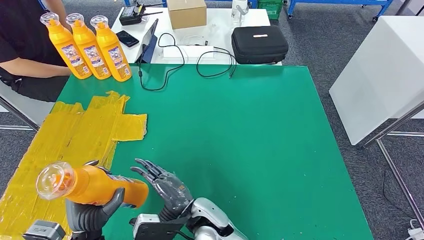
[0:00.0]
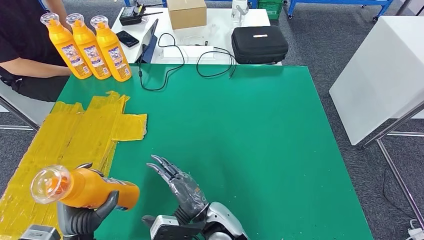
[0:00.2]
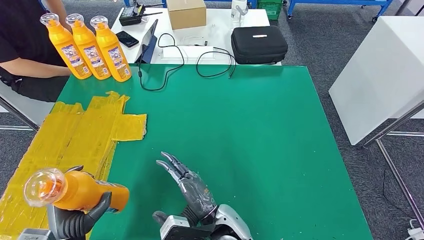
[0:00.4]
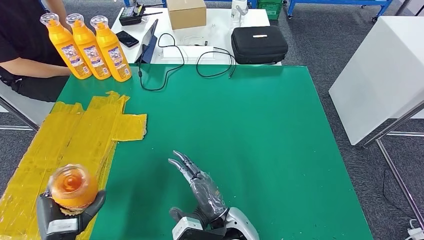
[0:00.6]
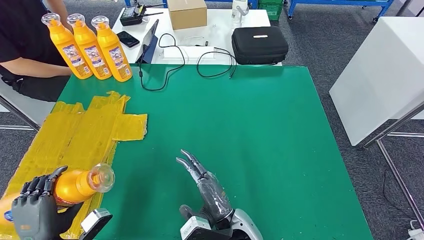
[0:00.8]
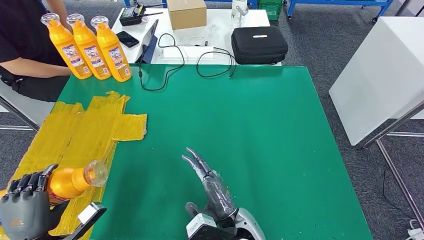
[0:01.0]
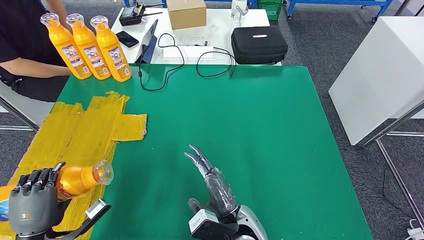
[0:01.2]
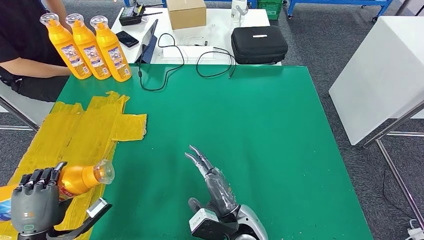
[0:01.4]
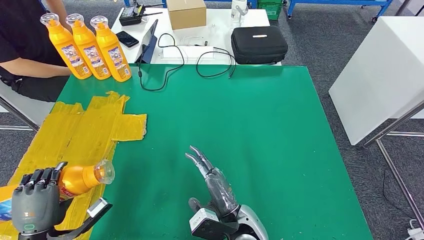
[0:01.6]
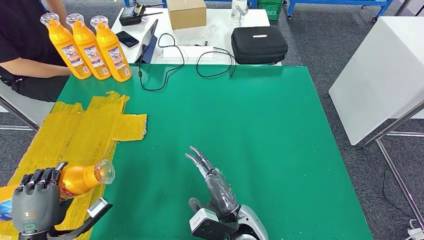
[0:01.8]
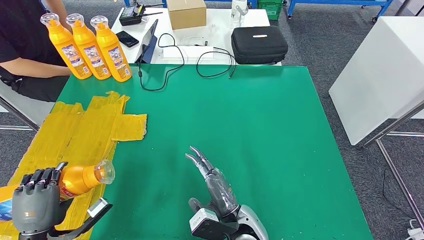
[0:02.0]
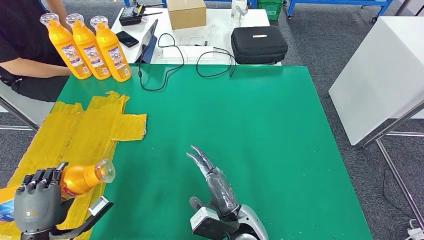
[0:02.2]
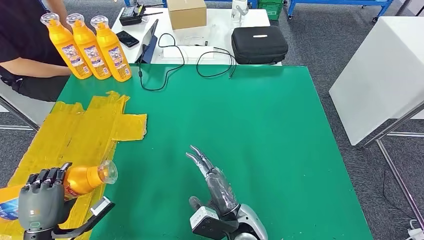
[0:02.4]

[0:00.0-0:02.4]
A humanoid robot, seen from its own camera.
Step, 0.0 to 2.2 s: Flip the fast-moving consumer goods bottle to the front side.
0.0 to 1.2 s: The left hand heads to the left, covering roughly 10 cm. The right hand shifts approximately 10 cm to the right.
1.2 to 2.4 s: There are only small adjustments of the hands.

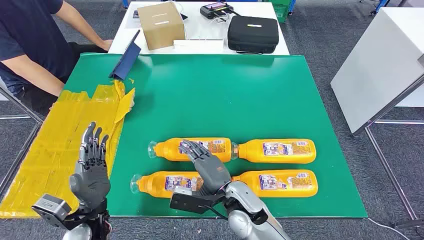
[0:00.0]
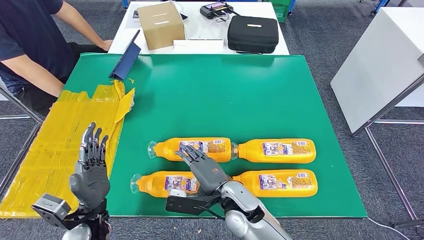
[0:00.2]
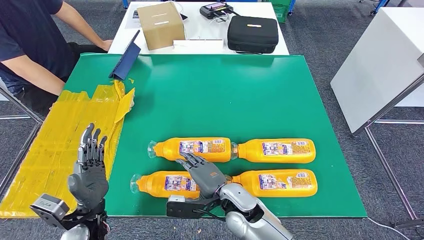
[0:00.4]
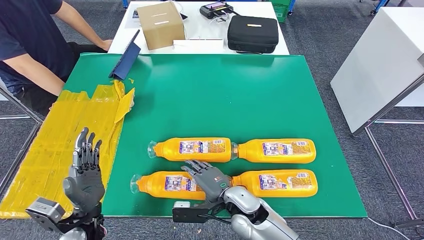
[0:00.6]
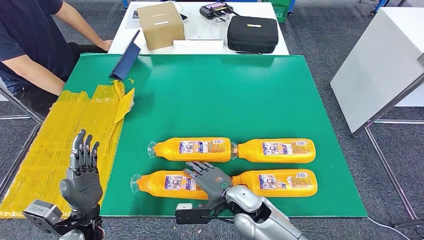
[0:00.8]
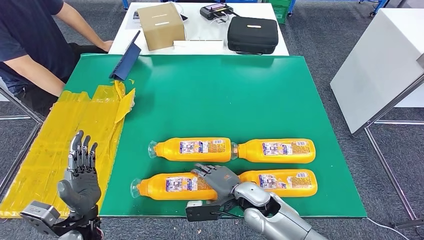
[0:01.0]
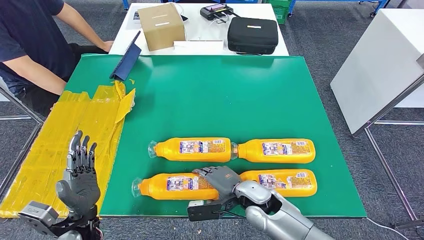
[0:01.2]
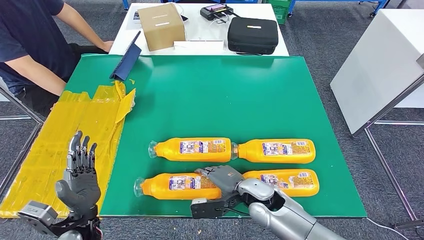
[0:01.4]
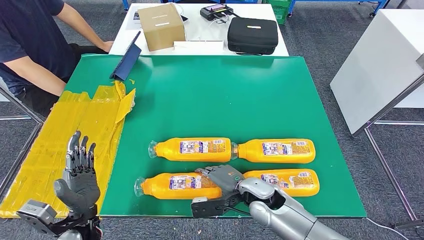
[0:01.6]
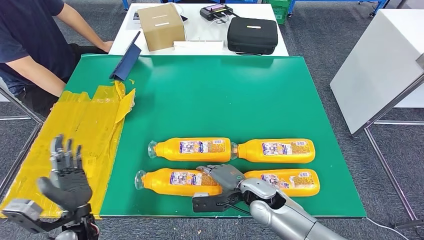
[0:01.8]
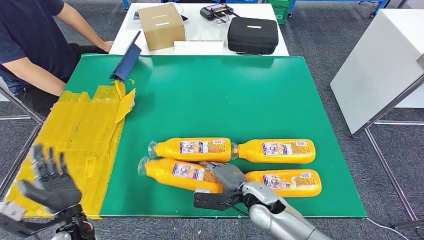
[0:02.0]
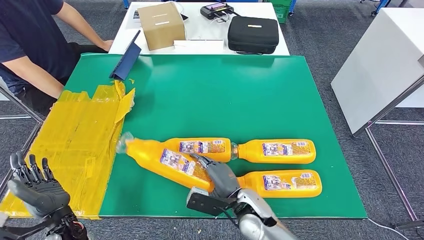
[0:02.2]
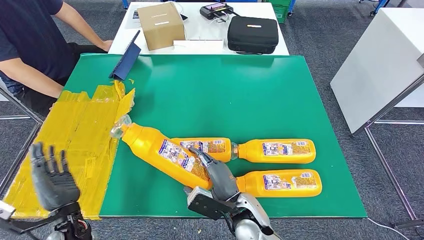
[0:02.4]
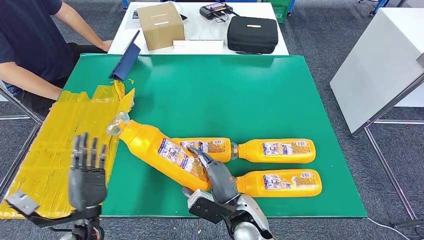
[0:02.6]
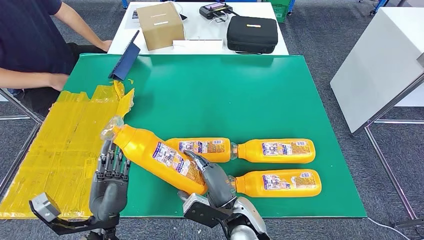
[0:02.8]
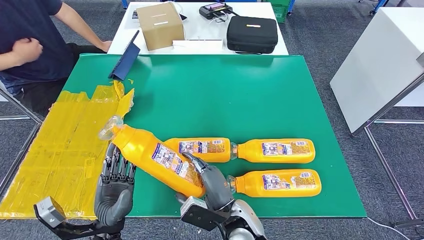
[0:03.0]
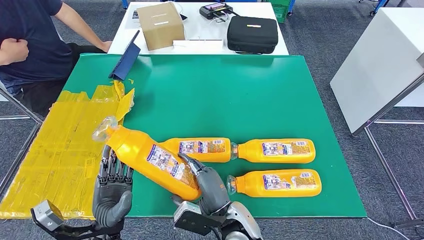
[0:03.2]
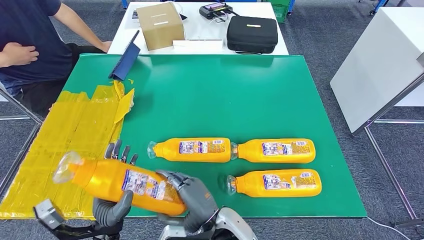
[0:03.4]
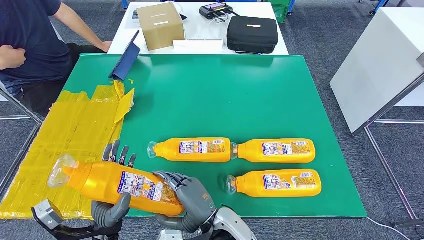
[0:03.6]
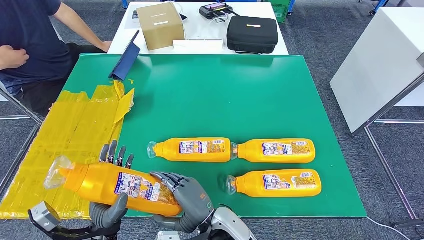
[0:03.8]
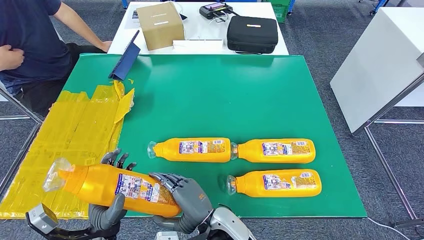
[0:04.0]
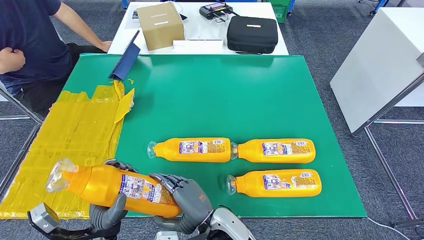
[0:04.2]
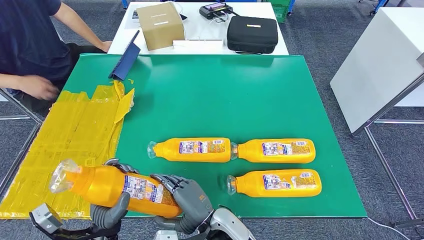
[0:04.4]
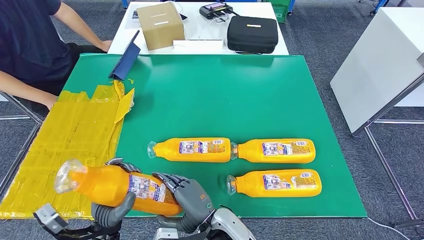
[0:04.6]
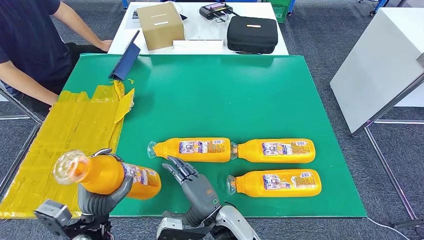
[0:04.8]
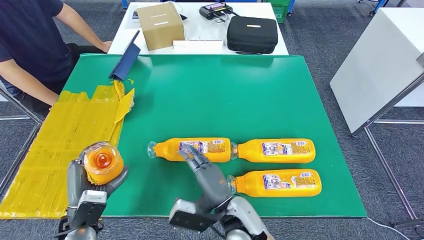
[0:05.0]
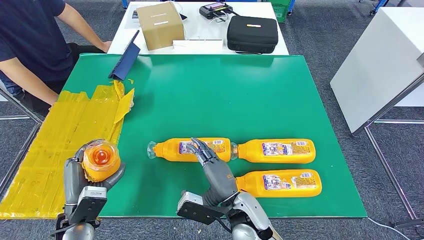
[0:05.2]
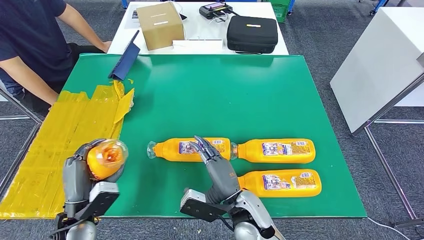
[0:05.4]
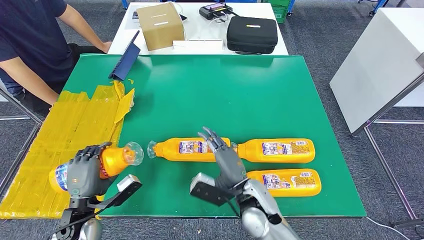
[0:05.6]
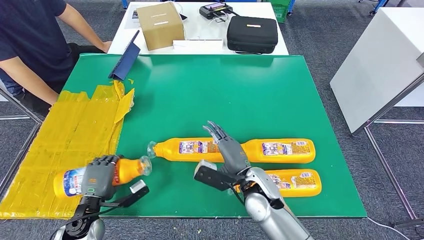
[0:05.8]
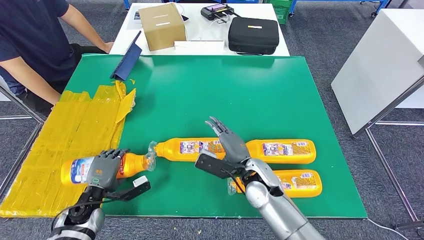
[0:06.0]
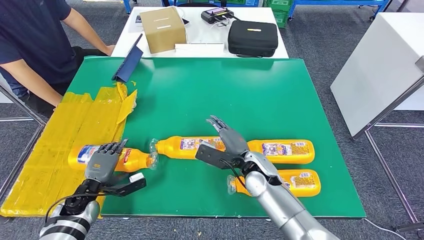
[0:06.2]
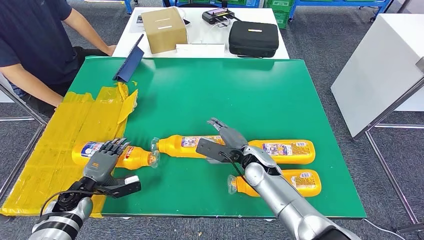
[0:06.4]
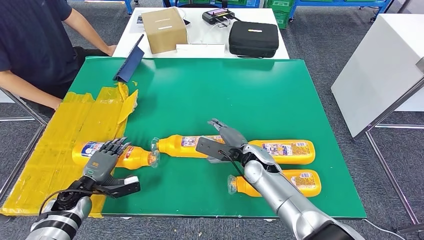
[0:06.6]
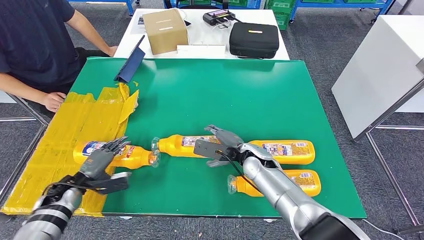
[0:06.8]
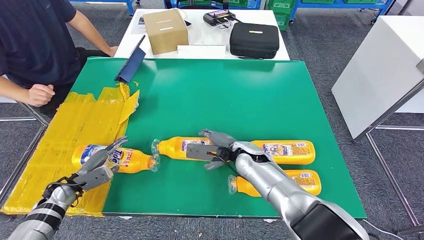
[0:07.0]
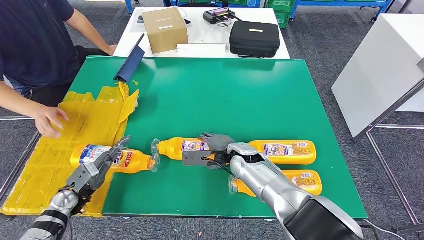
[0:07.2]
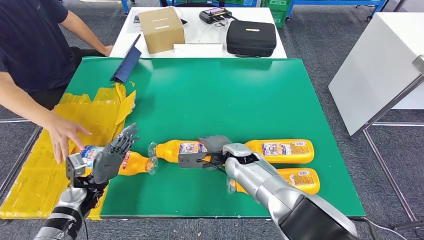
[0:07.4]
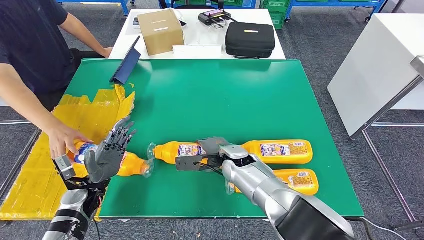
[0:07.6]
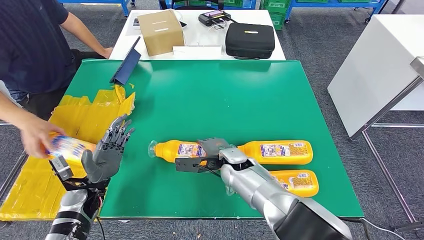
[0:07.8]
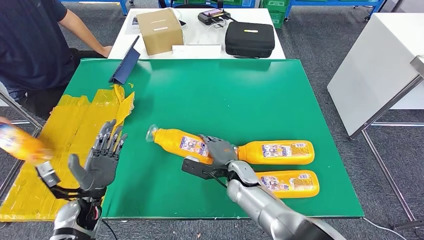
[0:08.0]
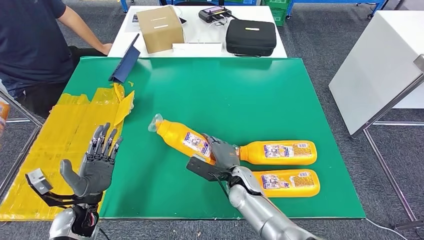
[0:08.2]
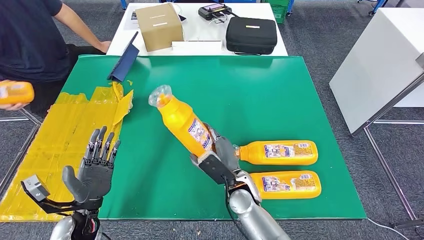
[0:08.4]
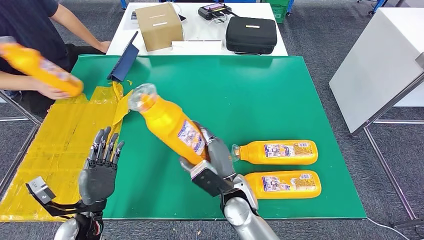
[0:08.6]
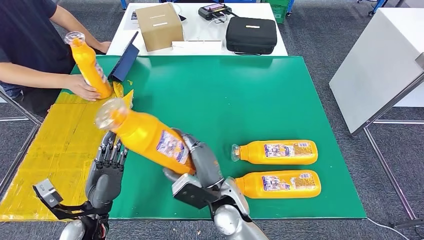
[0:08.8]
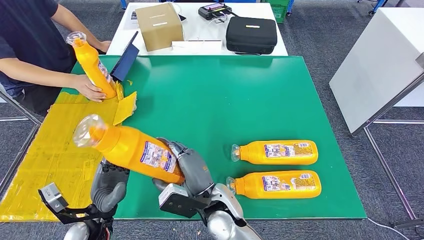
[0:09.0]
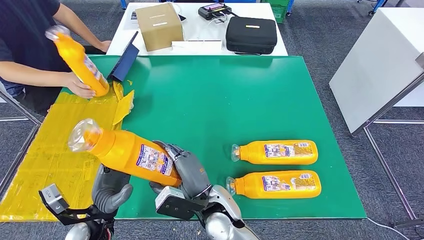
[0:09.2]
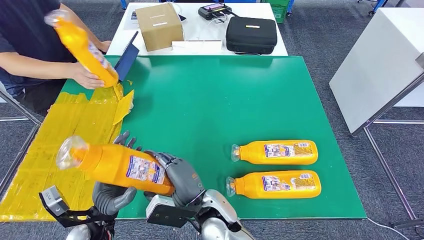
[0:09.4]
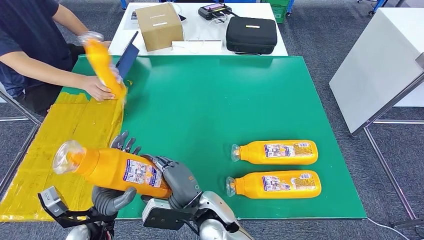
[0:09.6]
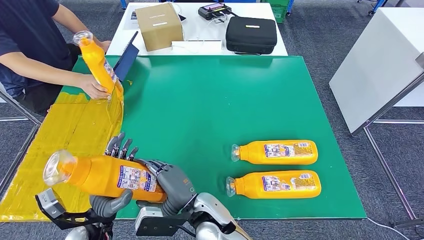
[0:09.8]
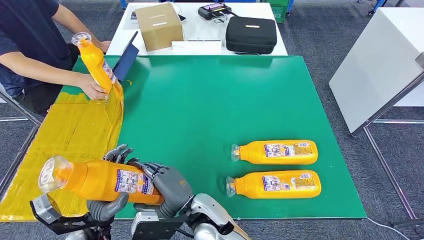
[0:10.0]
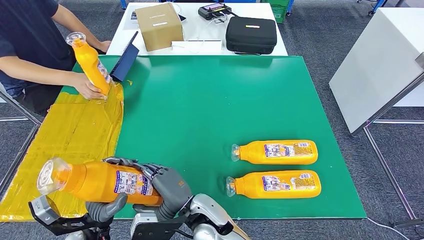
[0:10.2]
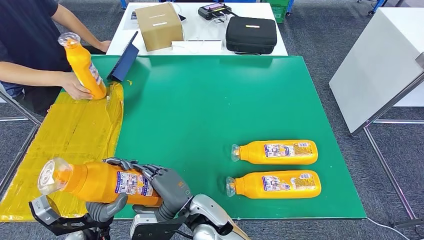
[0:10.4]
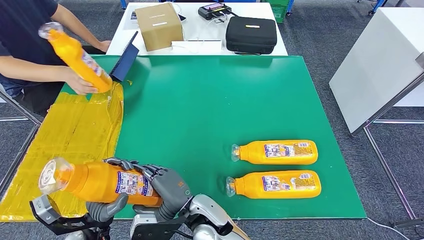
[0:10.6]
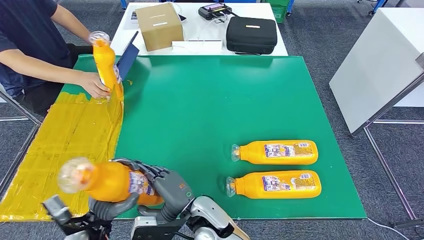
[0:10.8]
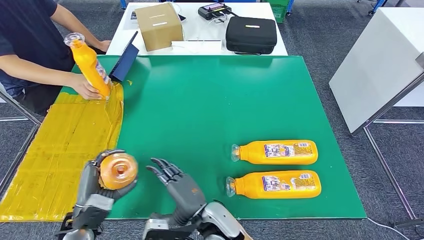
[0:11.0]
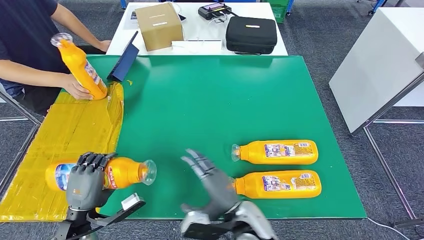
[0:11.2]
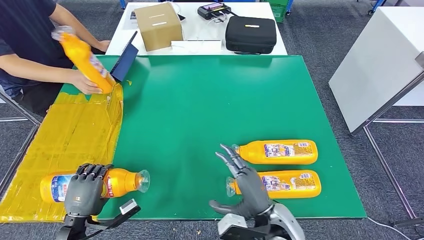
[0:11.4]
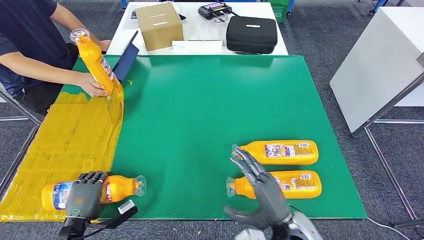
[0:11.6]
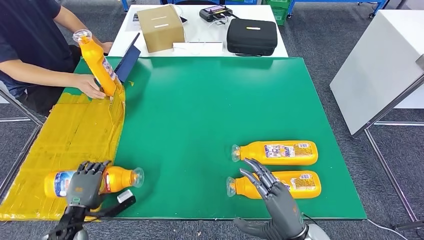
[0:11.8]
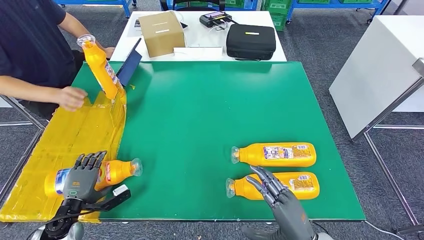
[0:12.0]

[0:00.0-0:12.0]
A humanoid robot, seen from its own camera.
Step, 0.0 to 3.4 s: Take the fast-moving consumer goods bottle from the table.
Step, 3.6 to 6.8 s: Flip the fast-moving consumer goods bottle to the front side.
Step, 7.2 to 10.6 s: Pick up the fast-moving consumer goods bottle from the table.
3.0 to 4.4 s: The hands stay close to where they were, moving slightly.

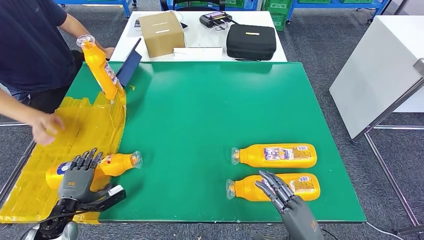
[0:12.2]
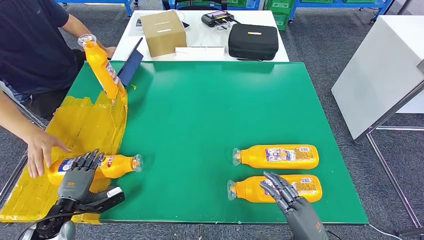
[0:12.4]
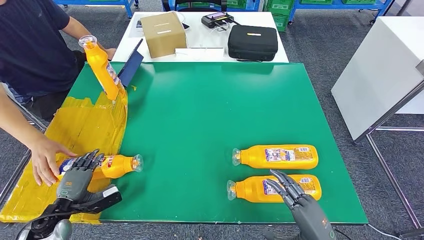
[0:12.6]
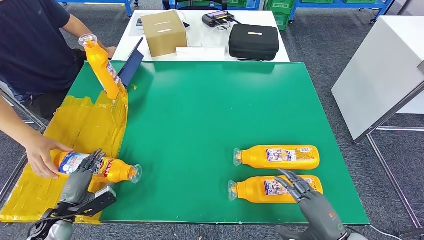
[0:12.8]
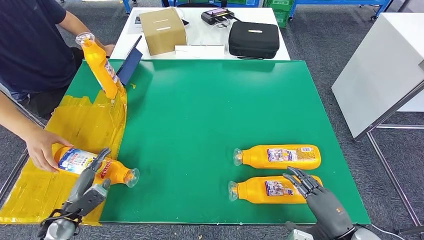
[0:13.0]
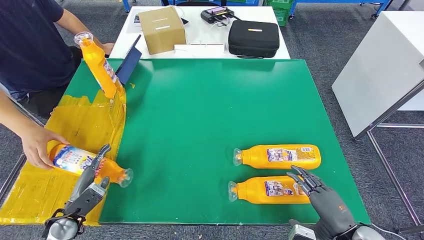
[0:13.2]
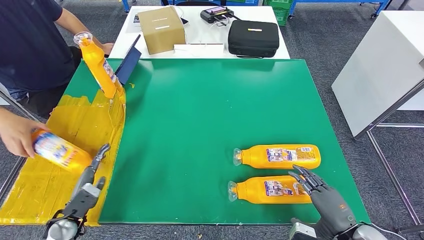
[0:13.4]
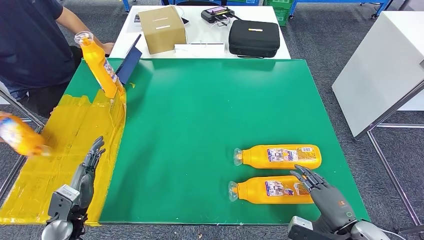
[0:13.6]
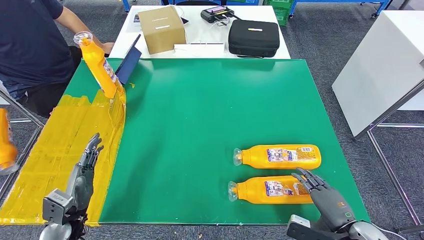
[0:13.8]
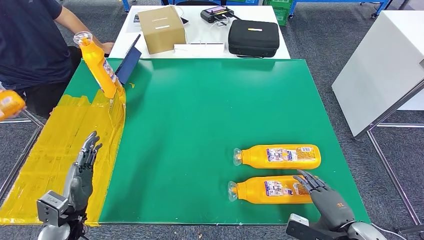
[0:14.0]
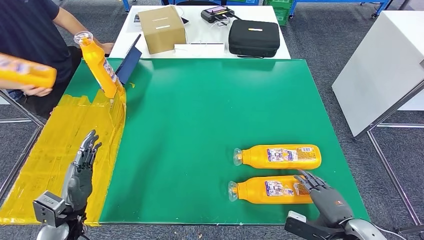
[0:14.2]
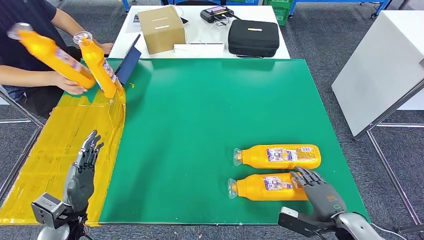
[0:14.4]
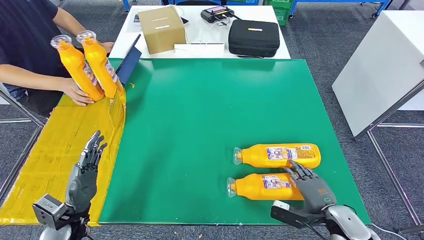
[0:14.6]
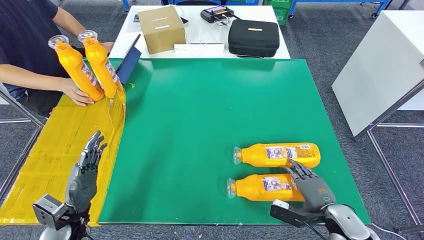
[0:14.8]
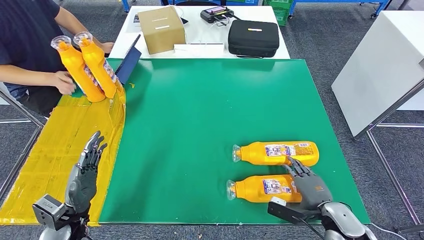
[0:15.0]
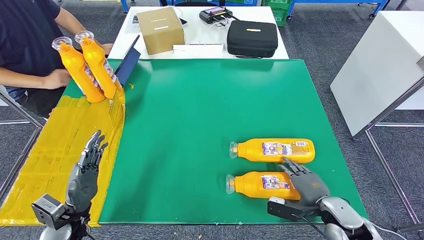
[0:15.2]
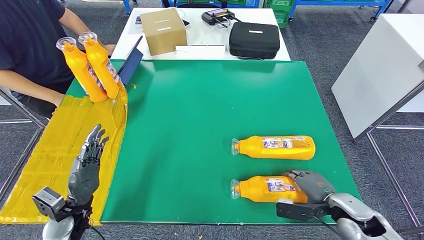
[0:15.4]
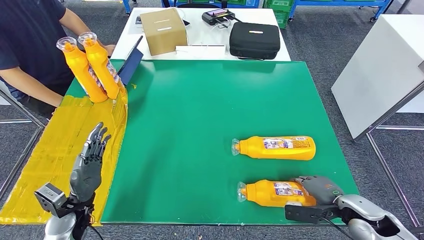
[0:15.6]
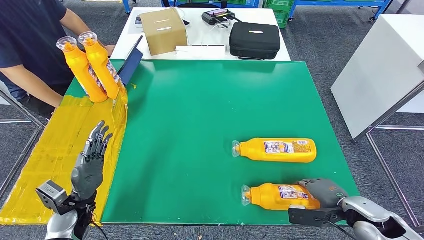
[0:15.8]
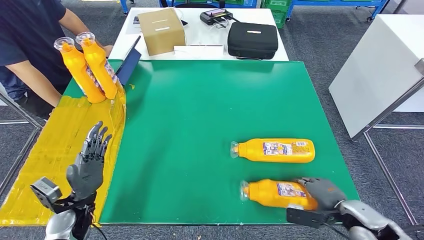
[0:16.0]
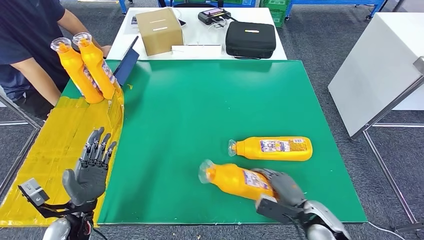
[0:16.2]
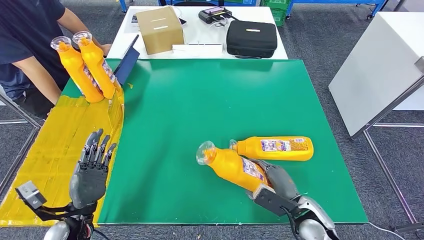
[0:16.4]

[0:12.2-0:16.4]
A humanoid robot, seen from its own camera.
Step, 12.2 to 14.8 s: Flip the fast-moving consumer goods bottle to the front side.
13.6 to 15.0 s: The right hand is displaced forward and downward by roughly 10 cm.
15.0 to 16.4 s: The right hand shifts approximately 5 cm to the left.
